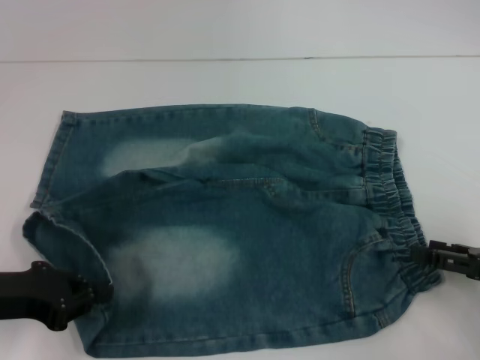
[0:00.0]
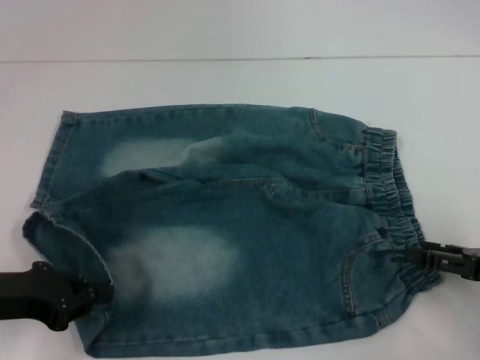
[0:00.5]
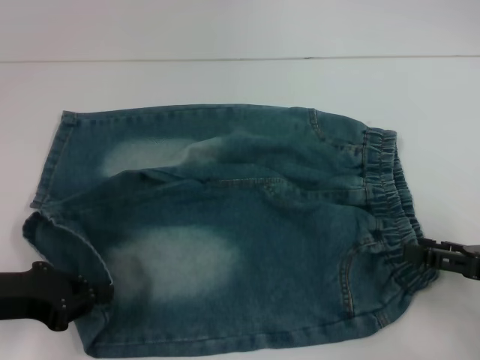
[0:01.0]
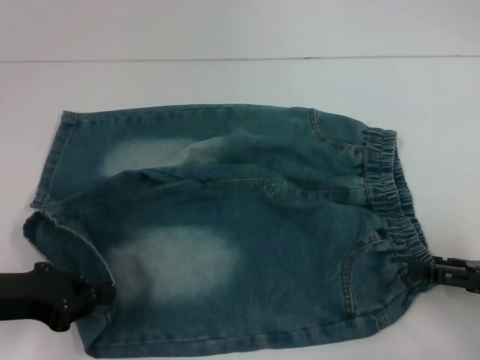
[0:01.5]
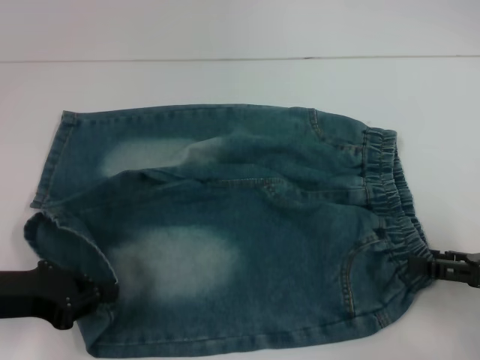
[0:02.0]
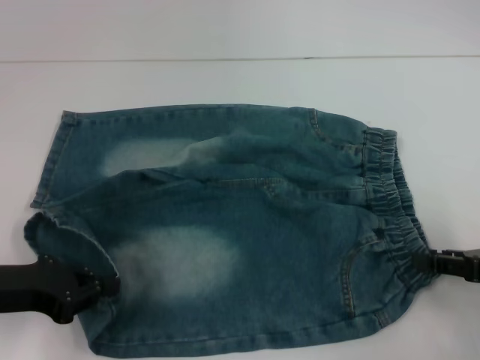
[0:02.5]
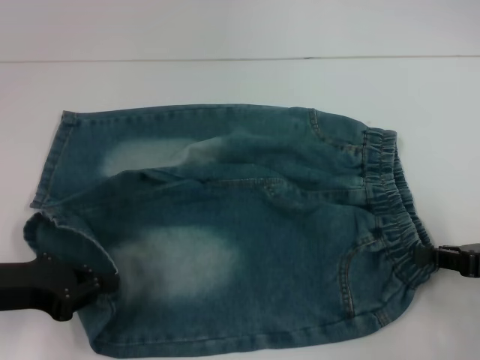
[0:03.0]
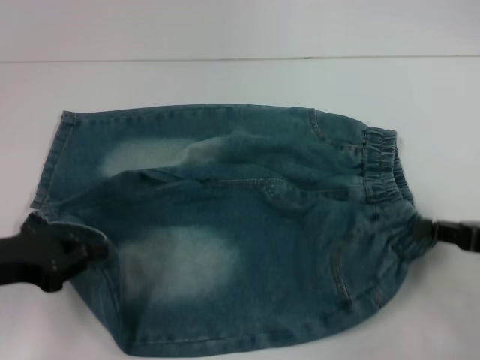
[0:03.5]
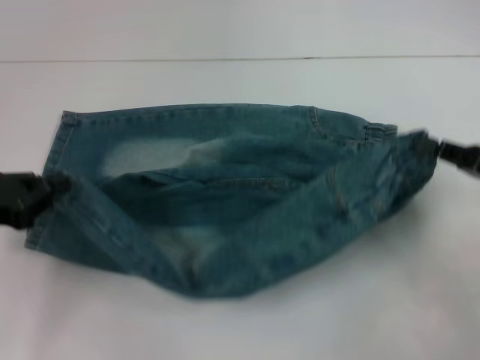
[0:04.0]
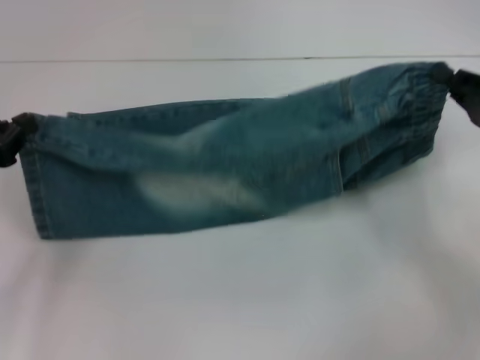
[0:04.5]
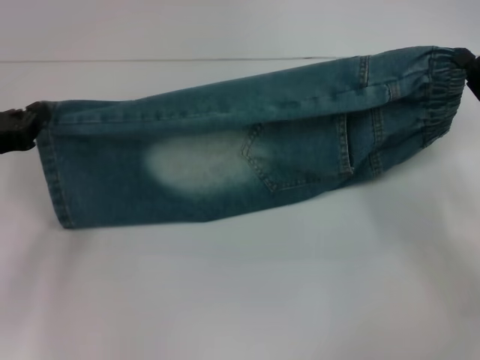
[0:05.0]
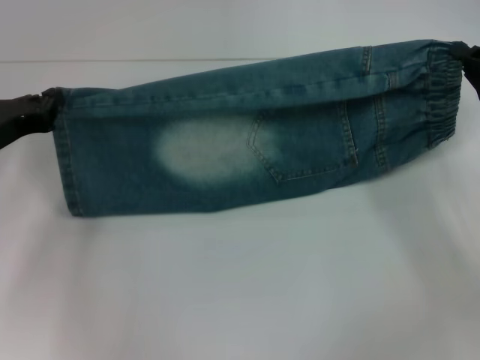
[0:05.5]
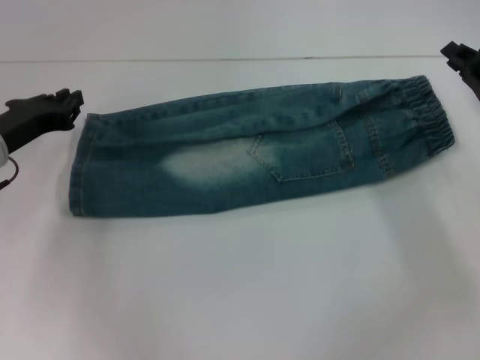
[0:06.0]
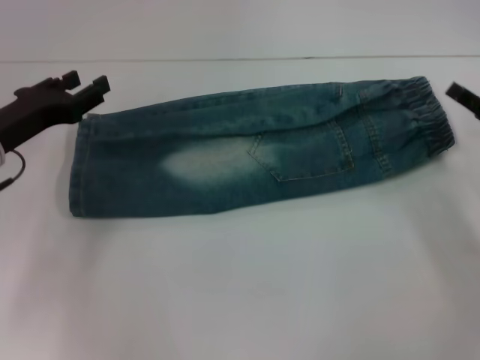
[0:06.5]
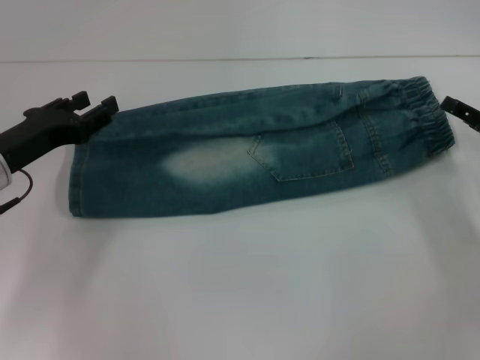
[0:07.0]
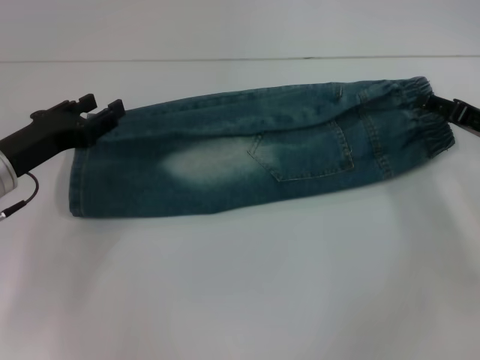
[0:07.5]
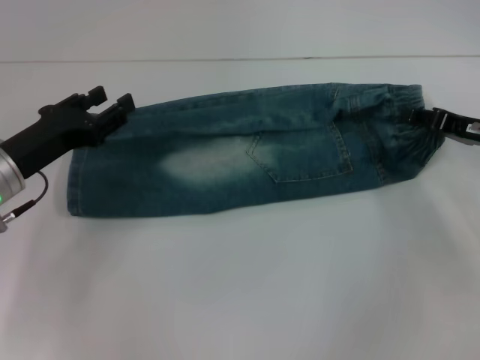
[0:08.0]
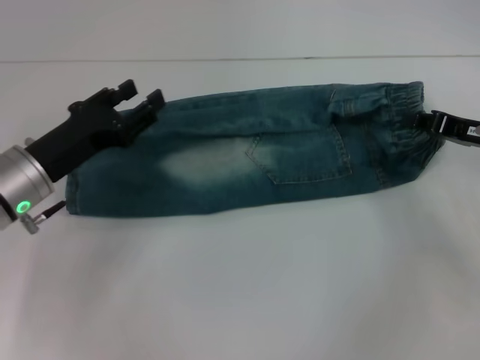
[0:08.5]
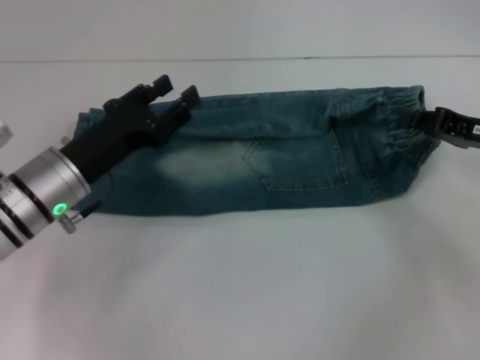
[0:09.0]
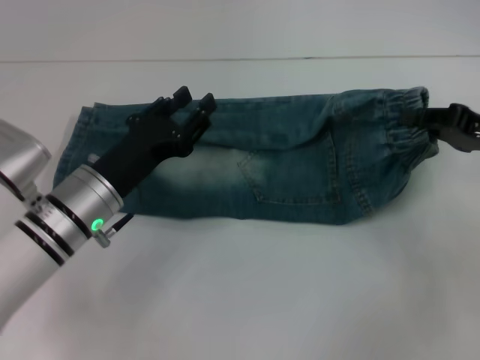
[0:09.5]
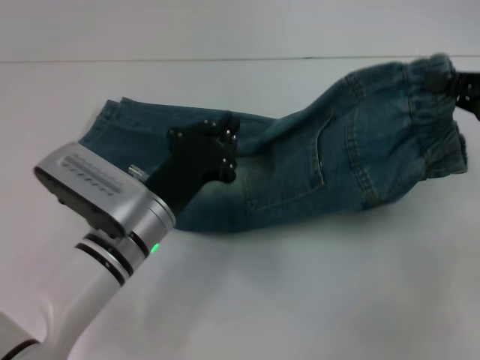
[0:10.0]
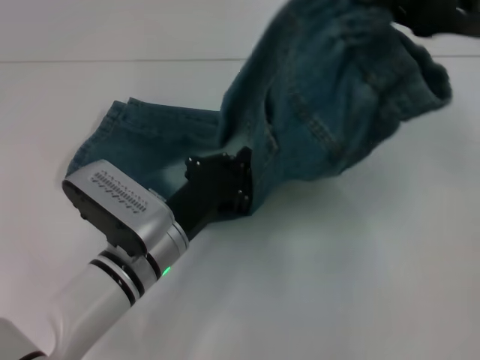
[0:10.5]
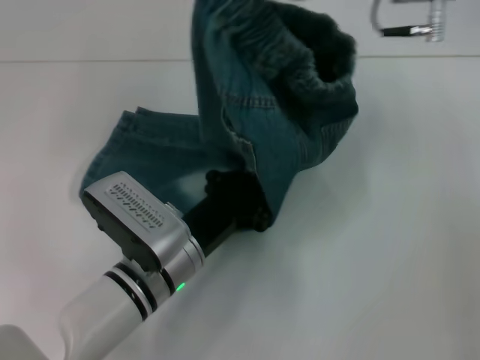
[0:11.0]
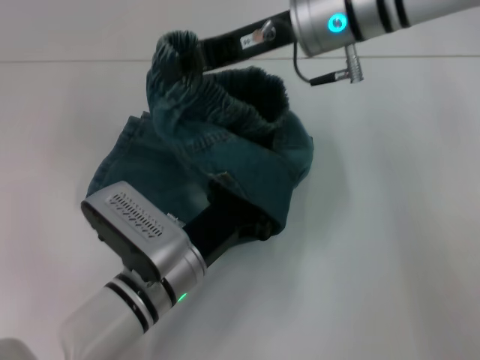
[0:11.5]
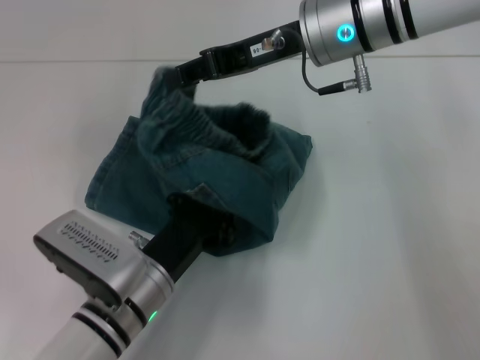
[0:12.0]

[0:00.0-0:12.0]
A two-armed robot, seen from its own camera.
Step, 0:02.0 to 0:06.0: Fold upward with your right hand.
Step, 0:06.5 to 0:08.5: Grab the waistband with your right hand.
Step, 0:09.0 to 0:11.5: Press the middle of the pants with your left hand.
0:00.0 to 0:02.0: The grippers make only small movements.
0:02.0 to 0:04.0: The right gripper moves approximately 5 cm, and closes.
0:04.0 to 0:06.0: The two grippers go roughly 10 cm forward.
0:06.0 to 0:08.0: The right gripper opens up. The left gripper opens up.
0:08.0 to 0:10.0: The right gripper heads upward and backward, covering about 10 cm, and closes; the left gripper shifts approximately 15 cm to the right, and closes up.
0:10.0 to 0:12.0: The right gripper is displaced to the left and forward by approximately 25 cm; the left gripper shifts about 5 cm backward.

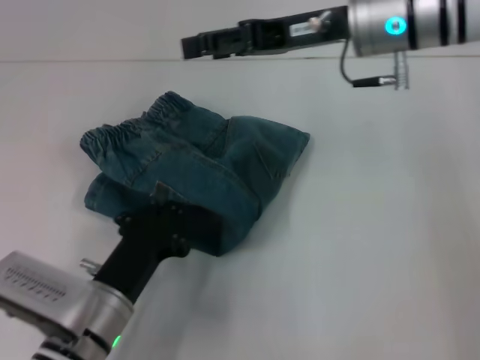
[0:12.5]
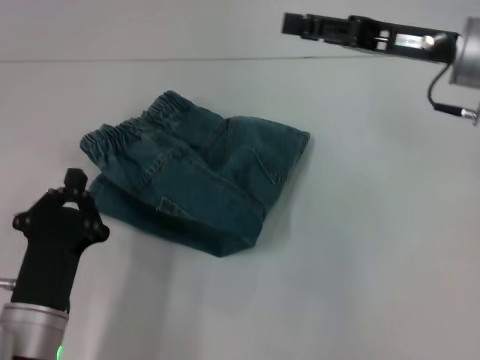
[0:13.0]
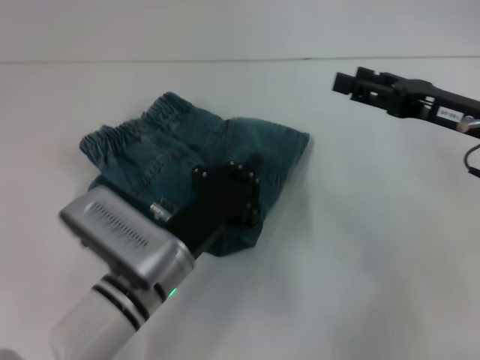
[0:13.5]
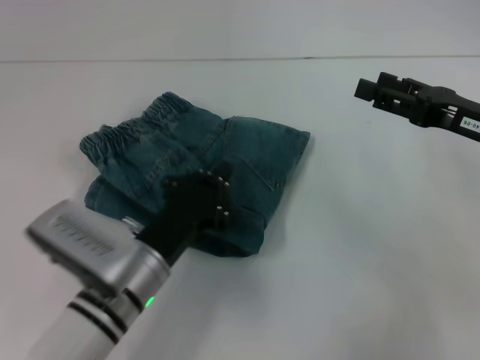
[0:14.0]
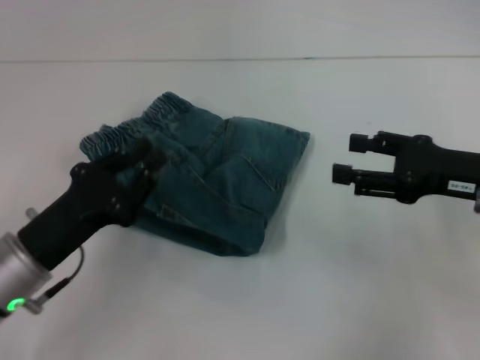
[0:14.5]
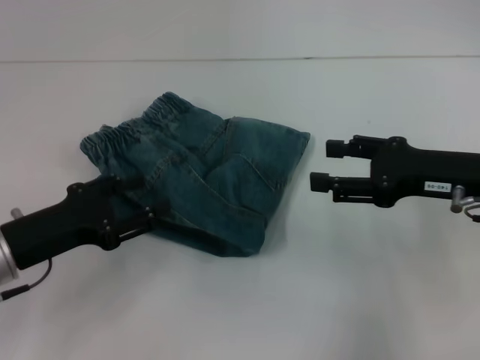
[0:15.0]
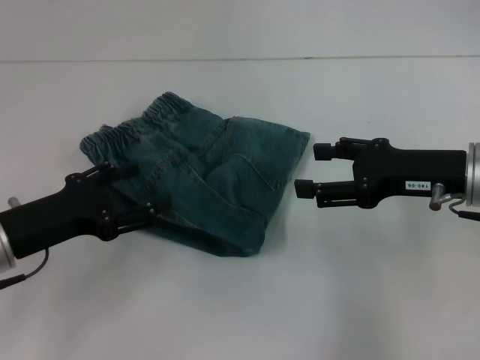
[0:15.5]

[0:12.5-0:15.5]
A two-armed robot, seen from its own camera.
0:12.5 to 0:14.0: The right gripper moves to the right, downward and backward, about 20 cm.
0:14.0 to 0:15.5: The left gripper travels to the left and upward by some 15 cm, and opens its fingers.

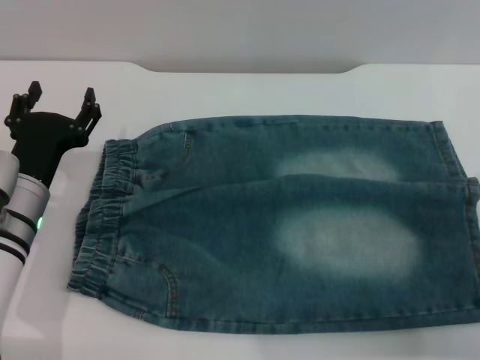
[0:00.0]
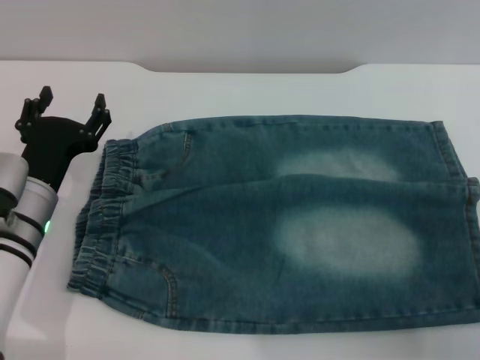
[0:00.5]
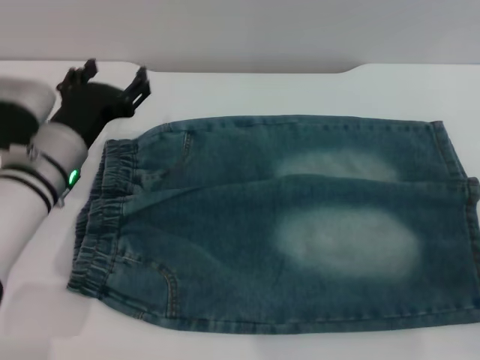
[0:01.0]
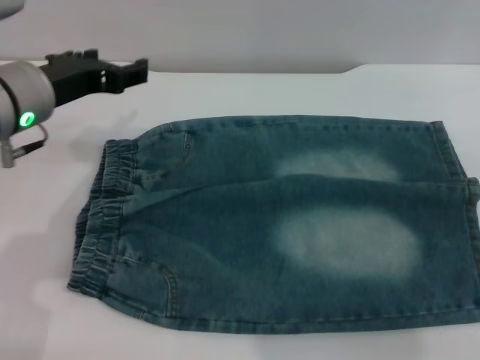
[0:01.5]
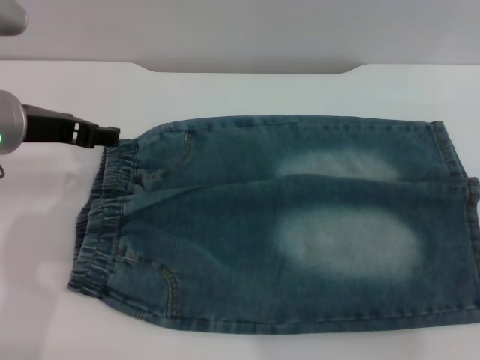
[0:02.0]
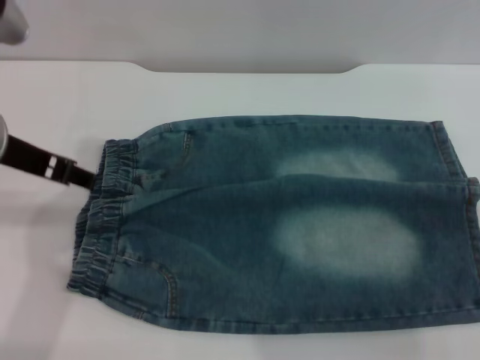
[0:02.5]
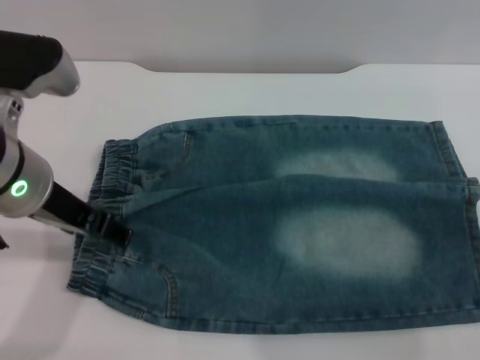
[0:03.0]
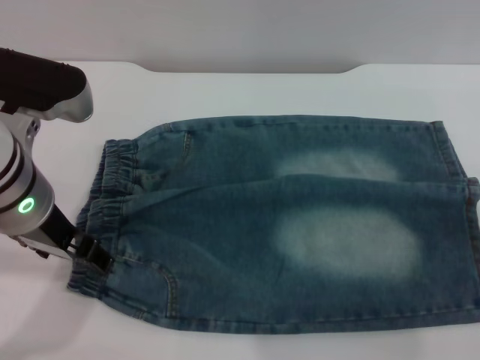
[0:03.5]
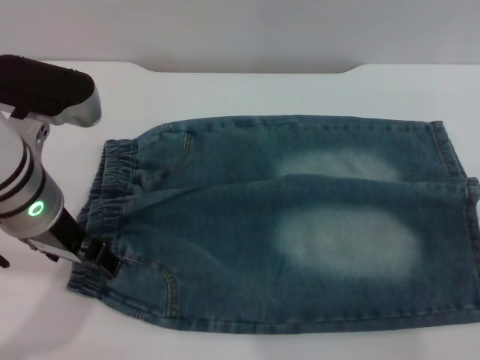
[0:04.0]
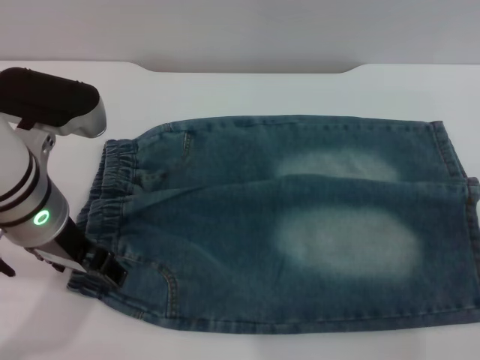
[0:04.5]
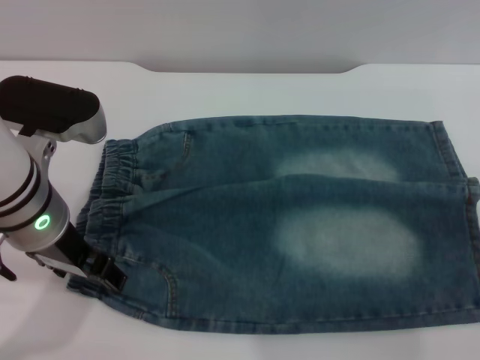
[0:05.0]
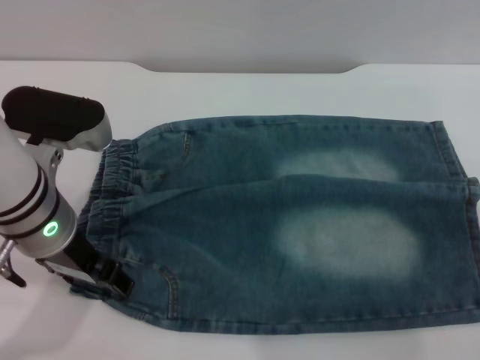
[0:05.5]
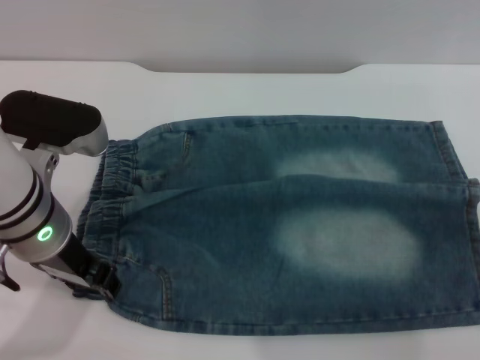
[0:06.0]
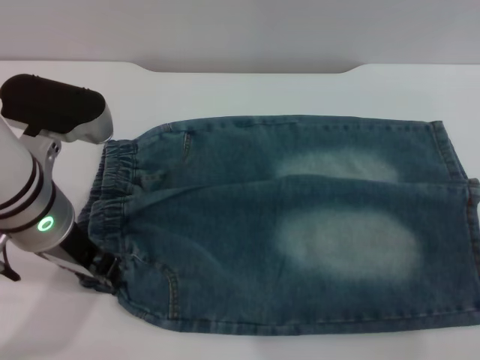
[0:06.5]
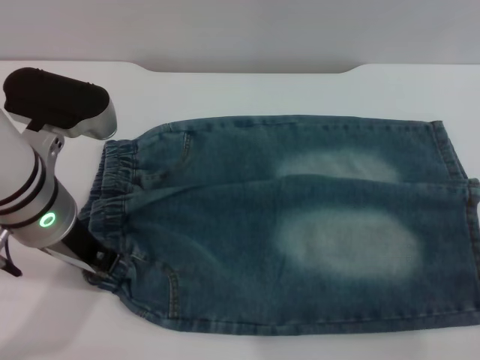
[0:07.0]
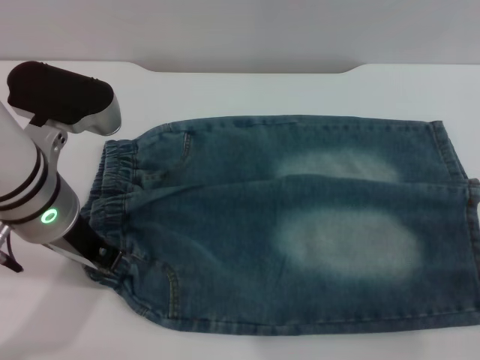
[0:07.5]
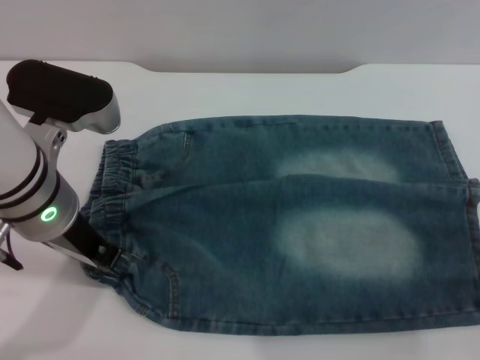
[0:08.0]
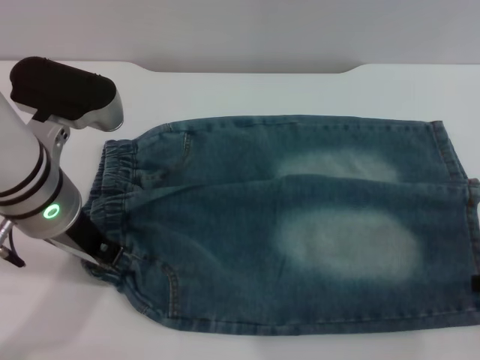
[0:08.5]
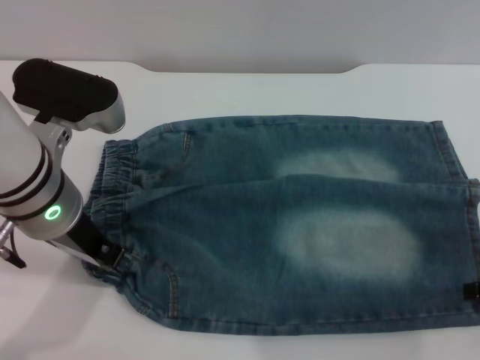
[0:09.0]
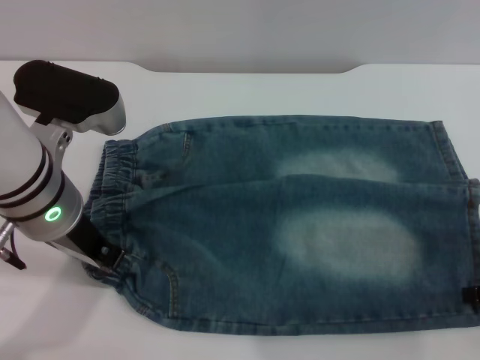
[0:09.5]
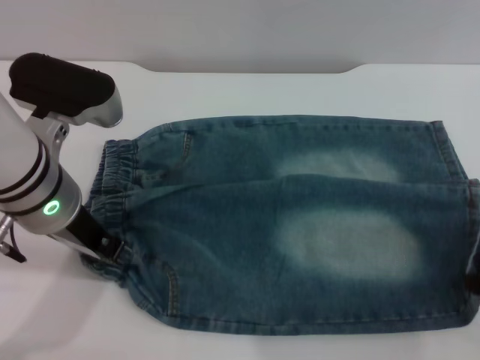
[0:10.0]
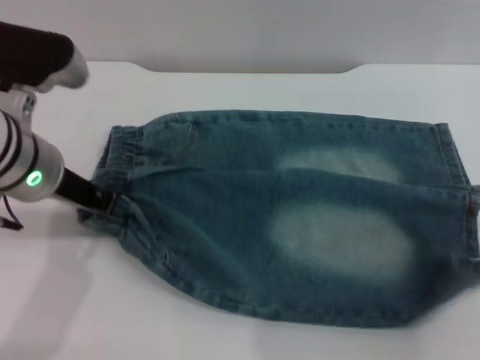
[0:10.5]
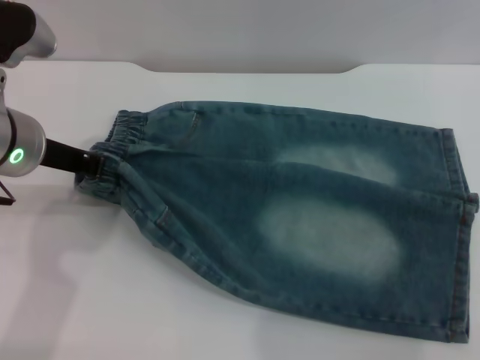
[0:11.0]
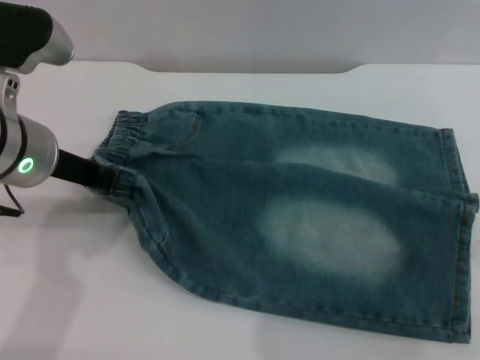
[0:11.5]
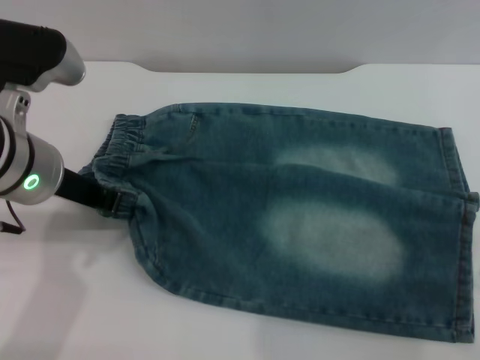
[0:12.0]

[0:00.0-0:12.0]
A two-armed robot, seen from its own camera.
0:00.0 to 0:02.0: Both grippers travel together upward, approximately 15 cm.
0:02.0 to 0:04.0: The left gripper changes place by roughly 5 cm.
0:04.0 to 0:06.0: The grippers stay close to where they were, moving slightly.
0:06.0 to 0:08.0: The left gripper closes.
0:08.0 to 0:10.0: The right gripper closes.
0:10.0 to 0:12.0: The right gripper opens its fingers.
